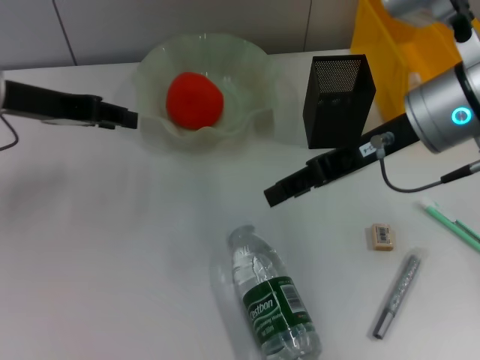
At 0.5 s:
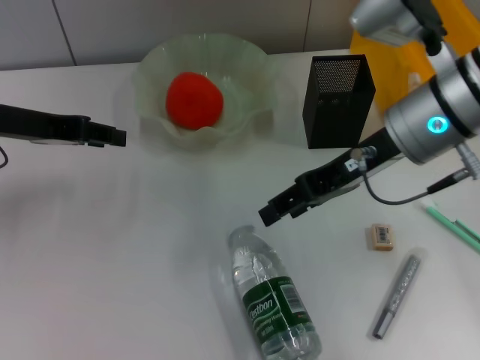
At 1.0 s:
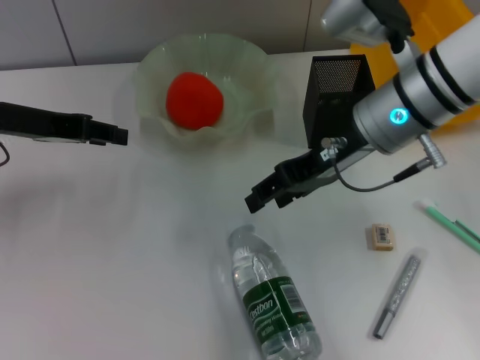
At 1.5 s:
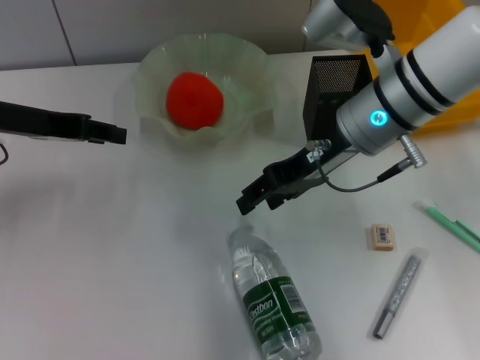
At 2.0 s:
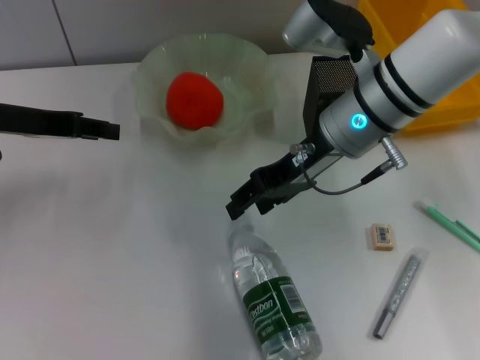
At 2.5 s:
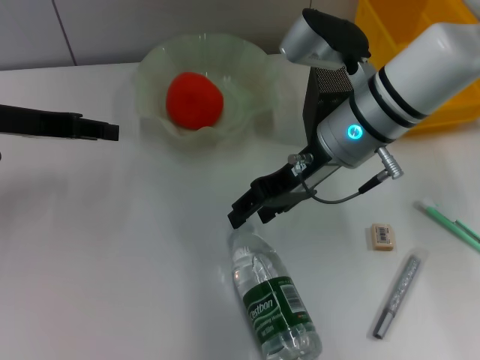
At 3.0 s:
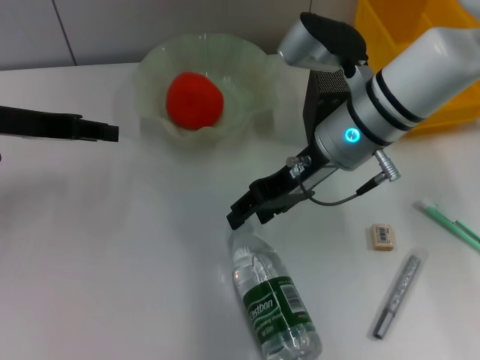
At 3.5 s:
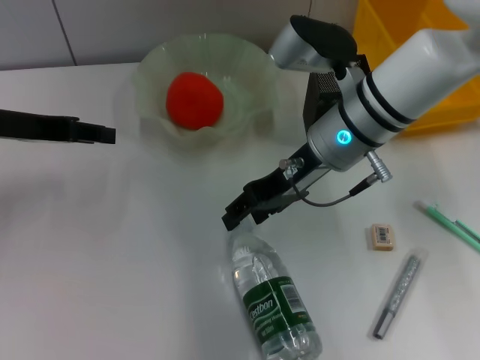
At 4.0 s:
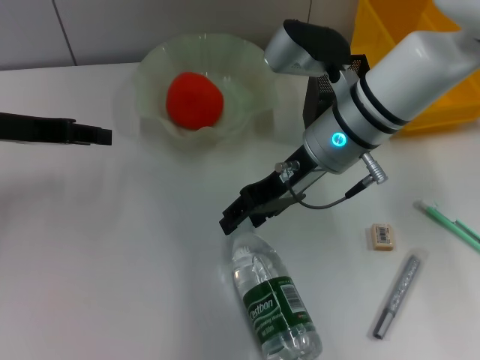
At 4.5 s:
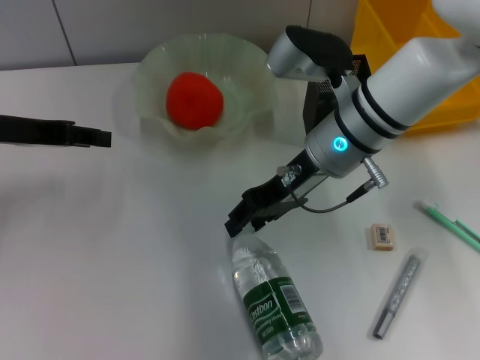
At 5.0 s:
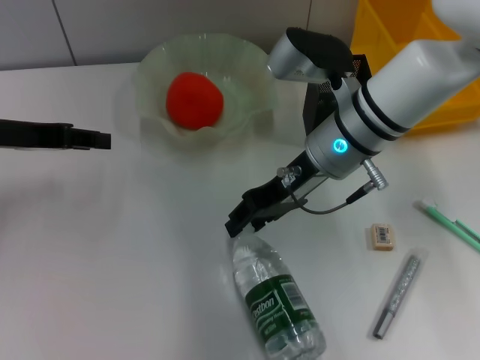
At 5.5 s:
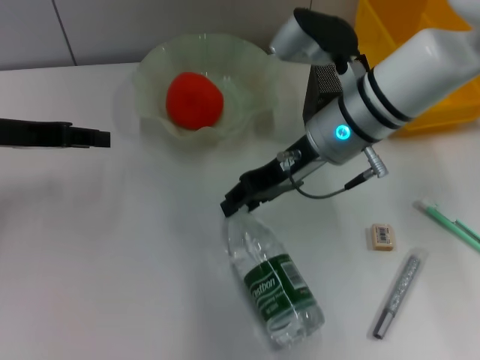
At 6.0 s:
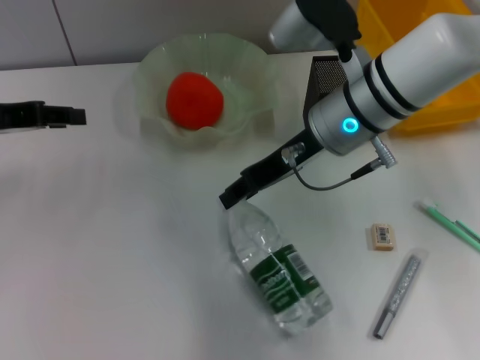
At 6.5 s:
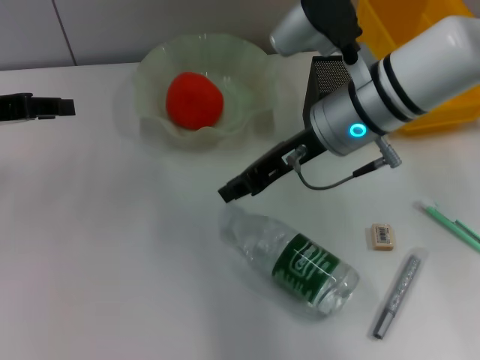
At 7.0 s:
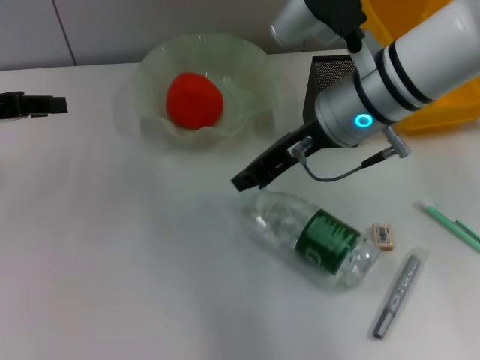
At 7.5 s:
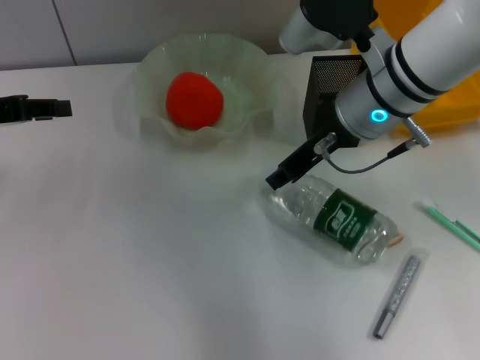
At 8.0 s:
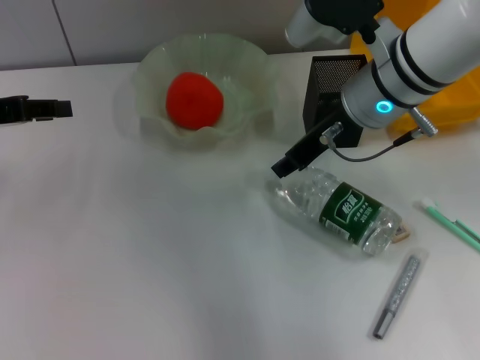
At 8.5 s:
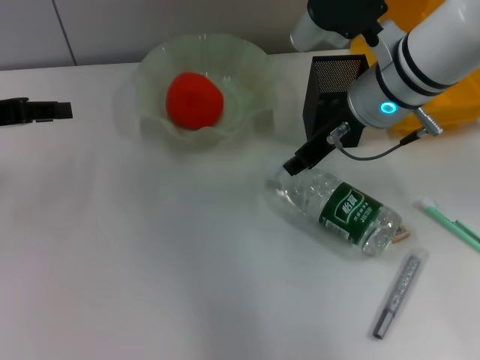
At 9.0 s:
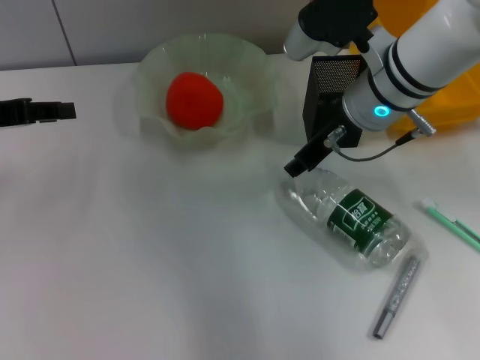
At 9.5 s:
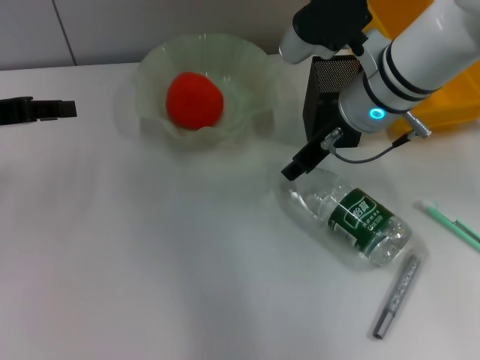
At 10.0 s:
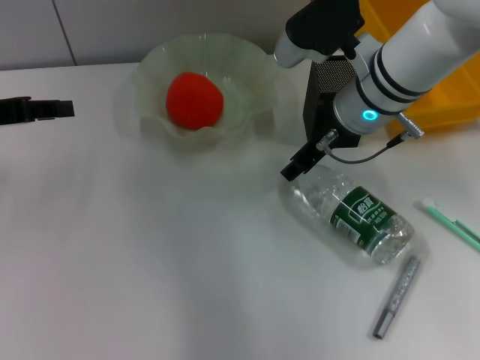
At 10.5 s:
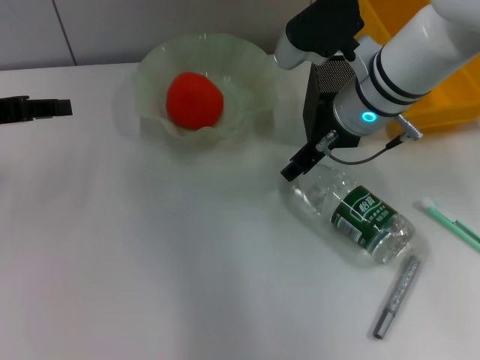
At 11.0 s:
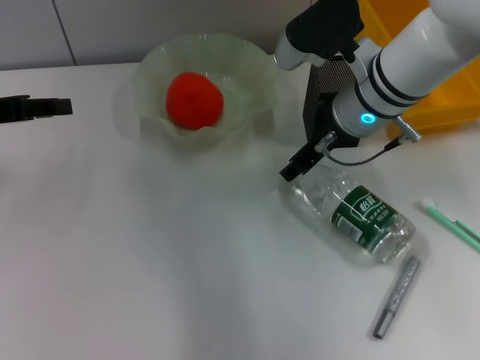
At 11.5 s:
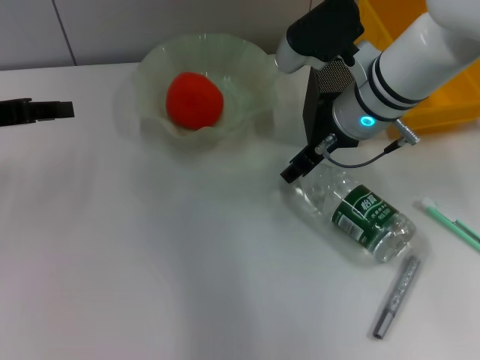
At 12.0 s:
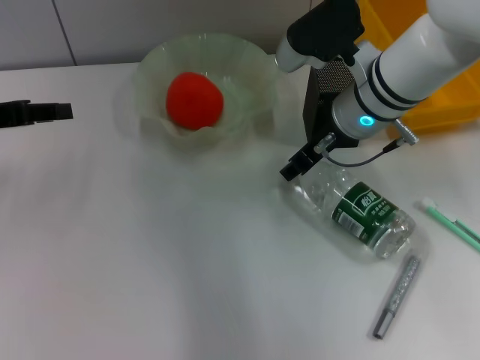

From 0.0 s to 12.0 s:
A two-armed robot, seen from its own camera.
Step, from 0.0 s to 11.5 s: Grab the water bottle with the right hand.
From 0.0 s to 2.0 s: The right gripper travels to the left by roughly 5 cm.
From 2.0 s to 6.0 s: The grippers stay close to where they were, moving slightly.
From 6.0 s to 8.0 s: The right gripper closes, then opens again.
From 8.0 s to 10.0 s: There are only small adjustments of the grippers.
From 10.0 s to 12.0 s: Both grippers stay put.

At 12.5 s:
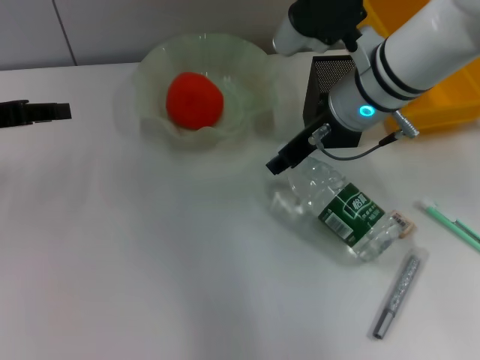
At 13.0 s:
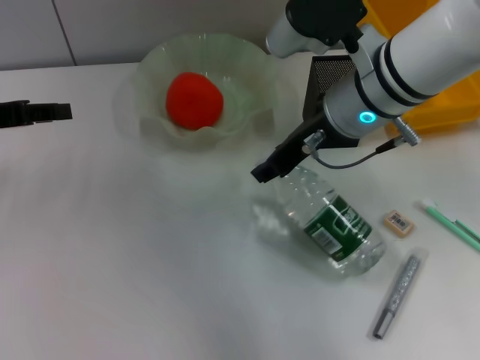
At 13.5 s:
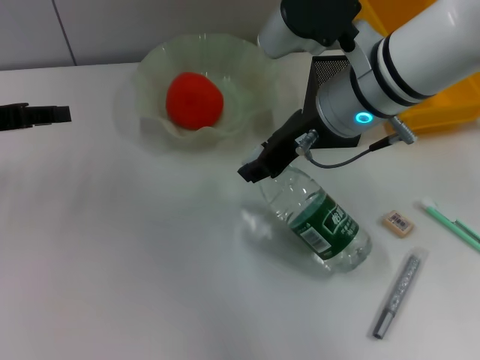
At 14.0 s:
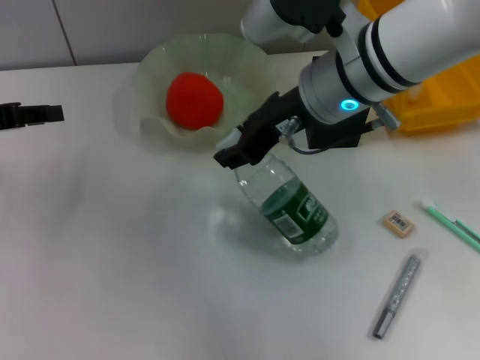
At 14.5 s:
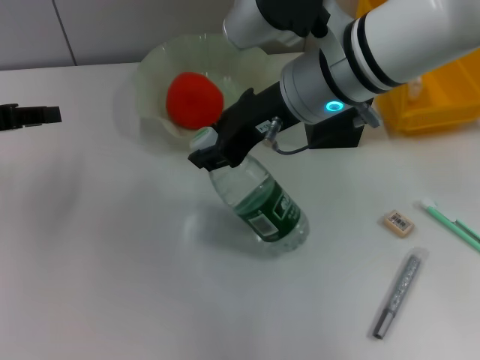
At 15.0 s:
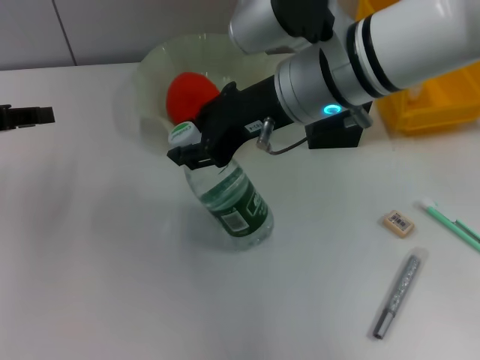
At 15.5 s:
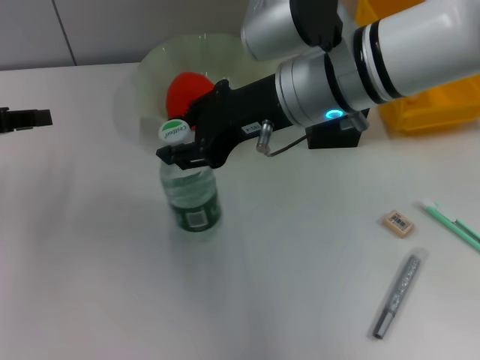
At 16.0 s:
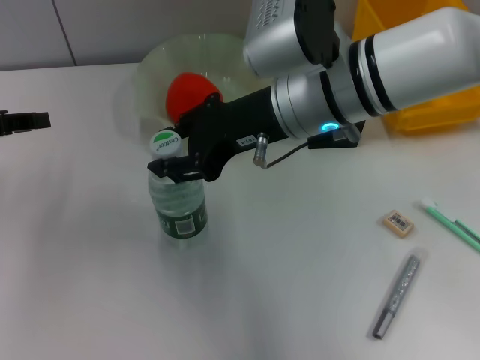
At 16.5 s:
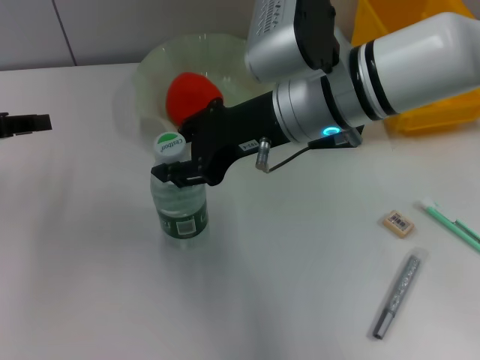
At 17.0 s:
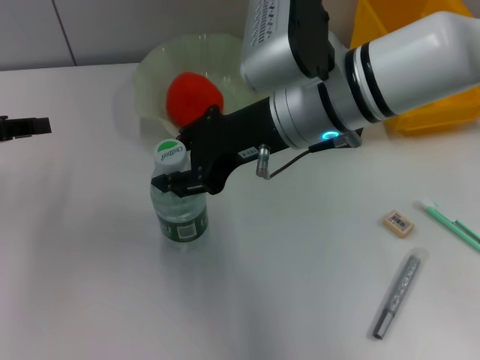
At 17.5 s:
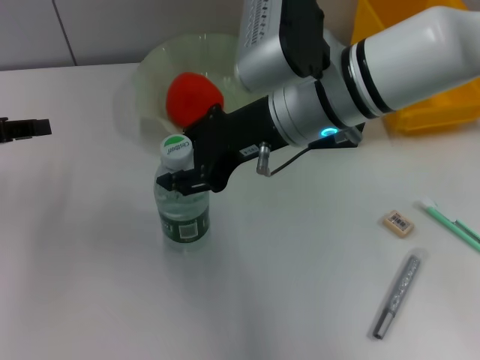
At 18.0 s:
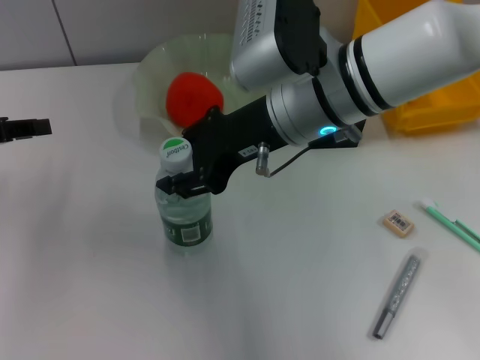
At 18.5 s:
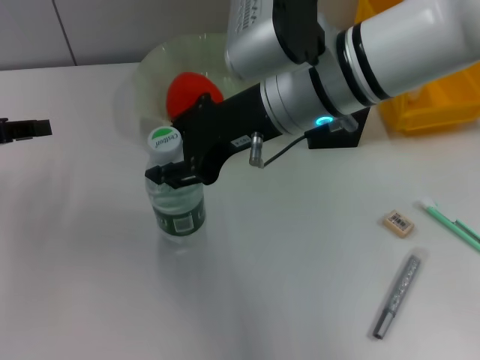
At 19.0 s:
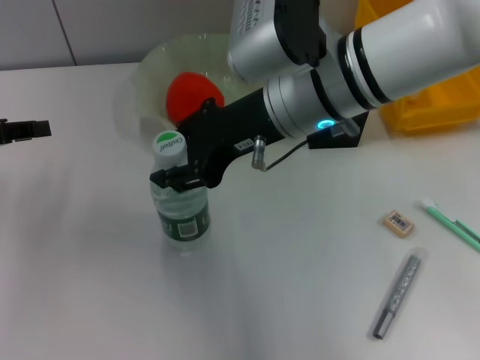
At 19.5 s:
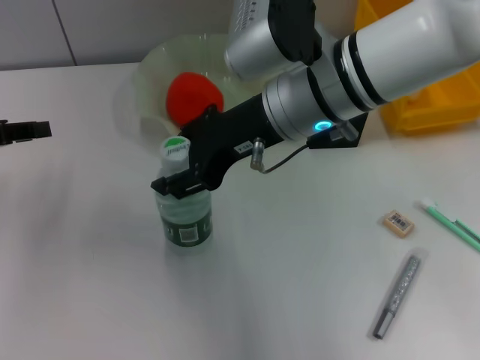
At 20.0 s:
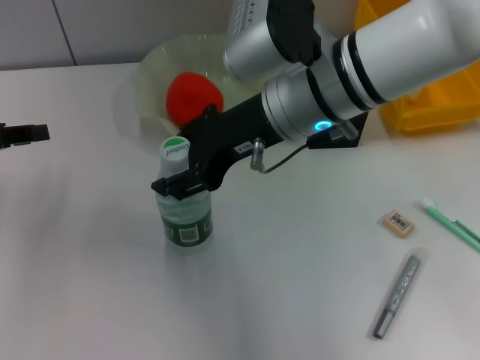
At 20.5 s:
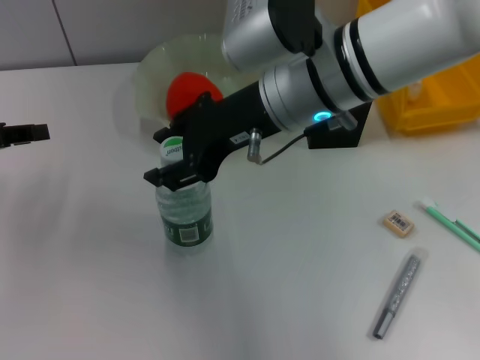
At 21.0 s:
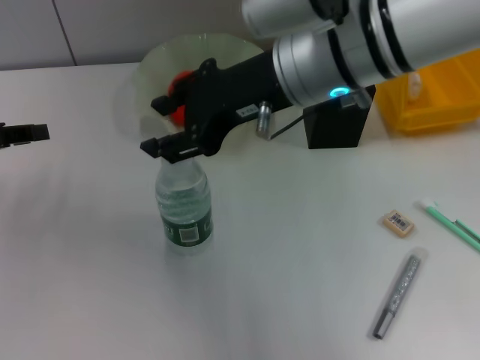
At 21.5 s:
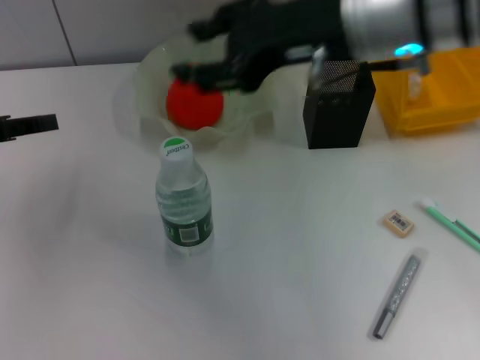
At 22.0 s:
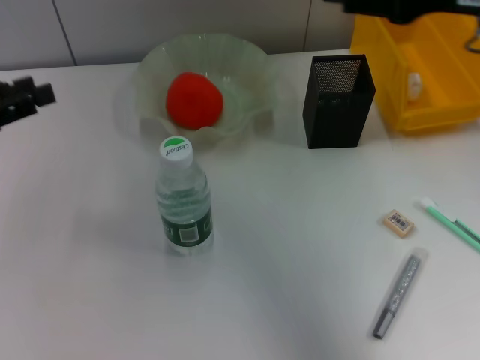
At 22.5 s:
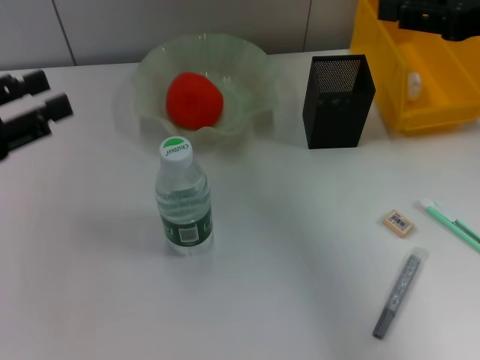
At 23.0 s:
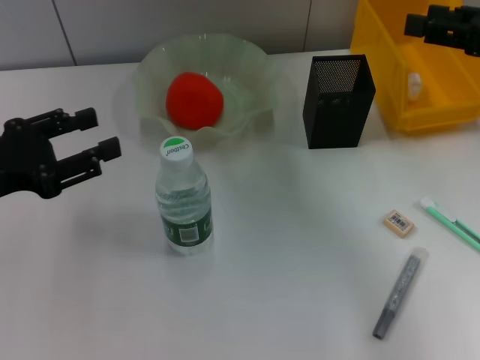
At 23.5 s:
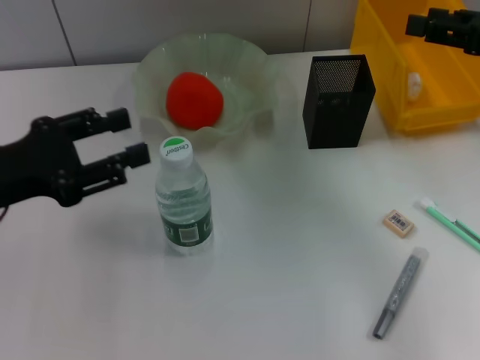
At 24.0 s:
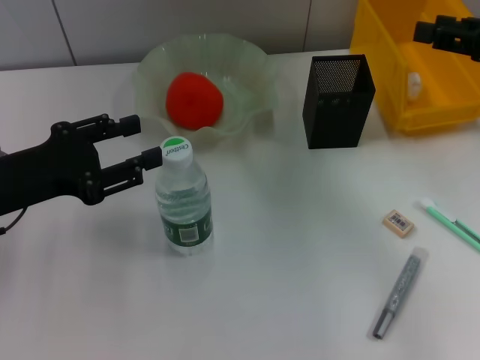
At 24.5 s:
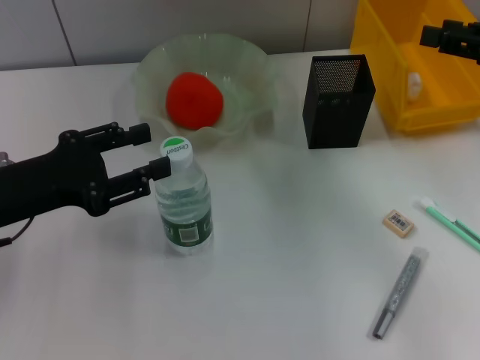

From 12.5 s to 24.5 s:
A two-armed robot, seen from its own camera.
Step, from 12.5 s to 21.0 s: Place the water bottle on the table with the right hand.
From 12.5 s to 14.5 s: The right gripper shifts by roughly 10 cm.
From 16.5 s to 20.5 s: The grippers stay close to where they were, moving slightly.
From 20.5 s to 22.5 s: The left gripper is displaced backward by some 5 cm, and opens its fingers. The right gripper goes about 20 cm to the right.
From 22.5 s to 24.5 s: The right gripper changes place by some 5 cm, while the left gripper goes about 5 cm to the right.

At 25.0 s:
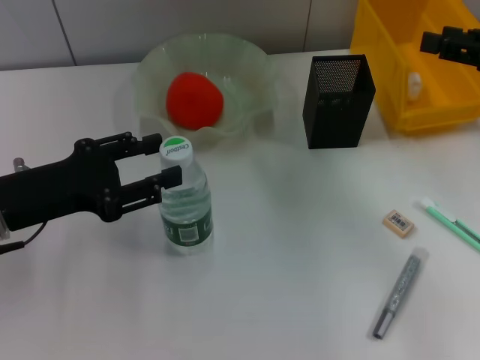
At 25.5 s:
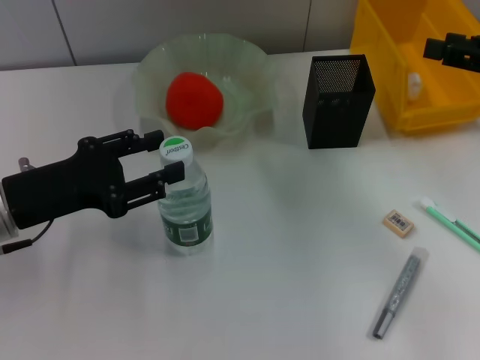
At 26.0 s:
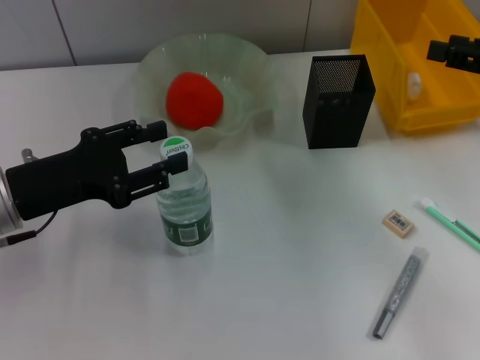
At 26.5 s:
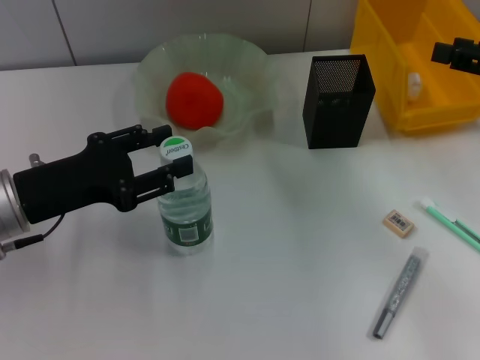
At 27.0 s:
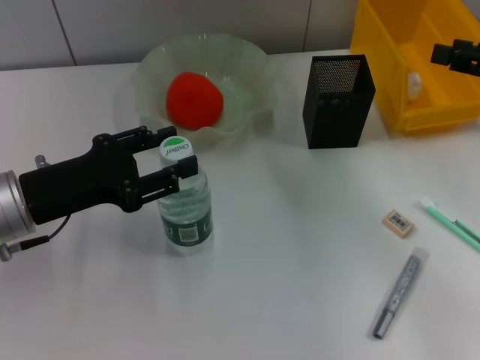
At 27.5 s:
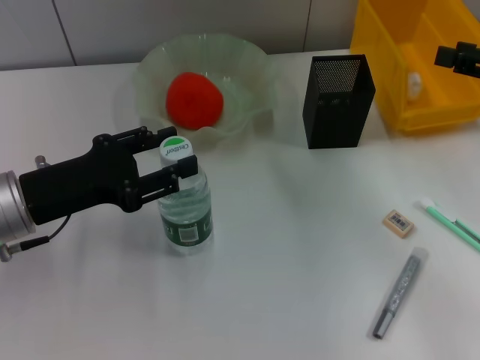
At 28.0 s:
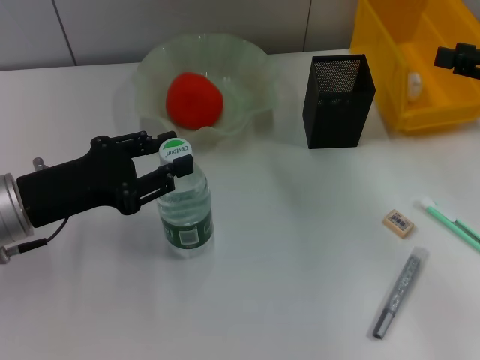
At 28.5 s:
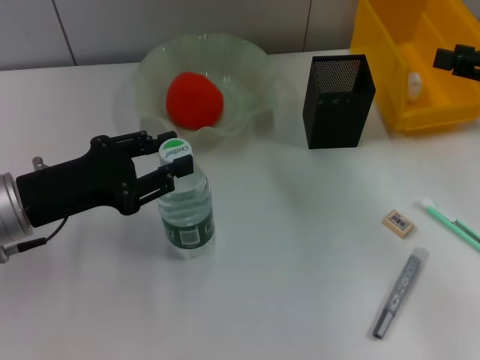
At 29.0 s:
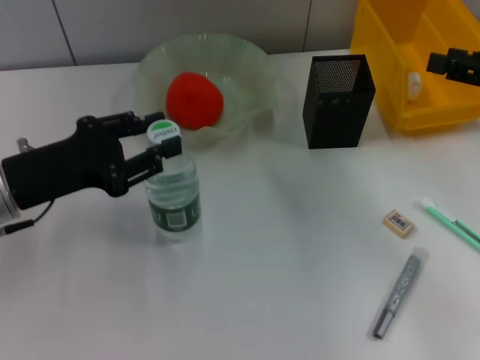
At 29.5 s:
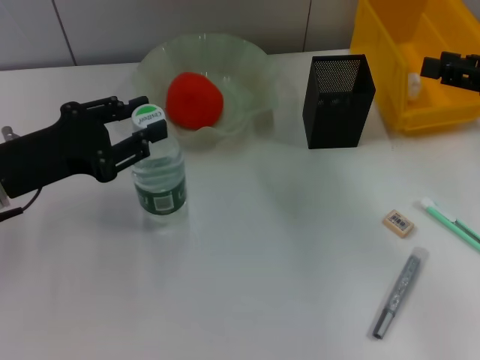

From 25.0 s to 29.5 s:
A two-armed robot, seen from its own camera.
Step, from 25.0 s to 28.0 s: Grab the water bottle with the left hand.
From 25.0 s to 27.0 s: The grippers stay close to where they were, moving slightly.
From 27.0 s to 29.5 s: The left gripper closes up.
